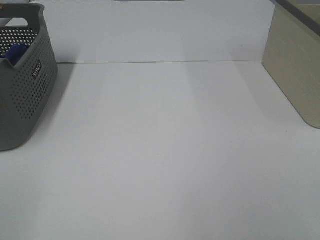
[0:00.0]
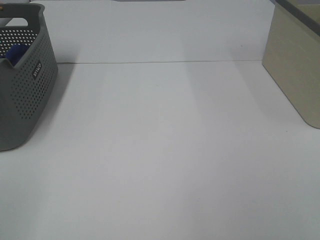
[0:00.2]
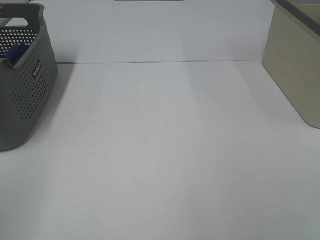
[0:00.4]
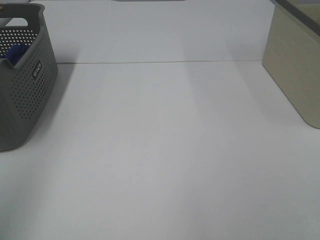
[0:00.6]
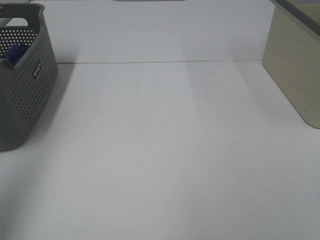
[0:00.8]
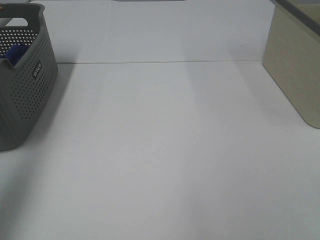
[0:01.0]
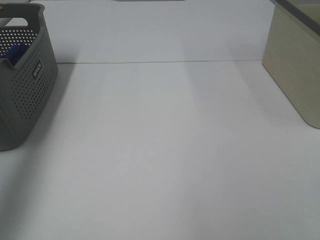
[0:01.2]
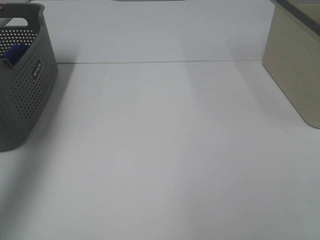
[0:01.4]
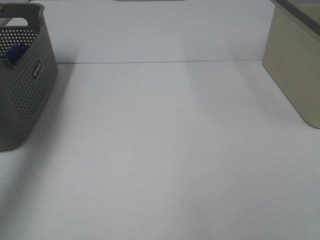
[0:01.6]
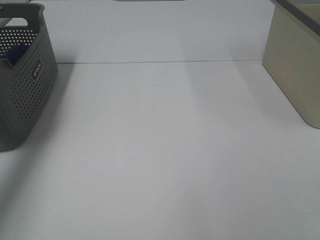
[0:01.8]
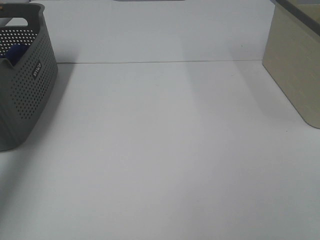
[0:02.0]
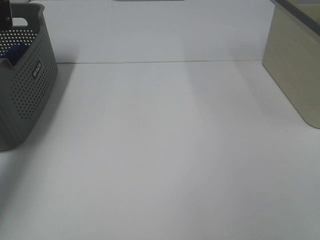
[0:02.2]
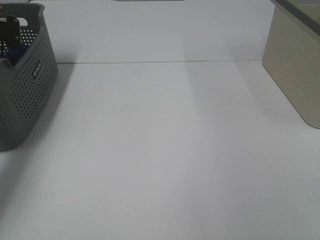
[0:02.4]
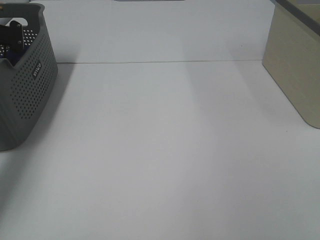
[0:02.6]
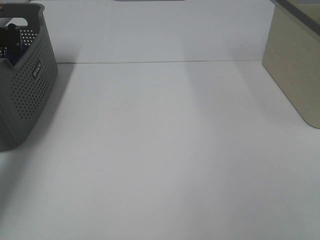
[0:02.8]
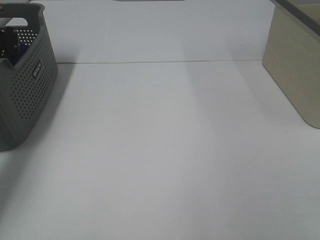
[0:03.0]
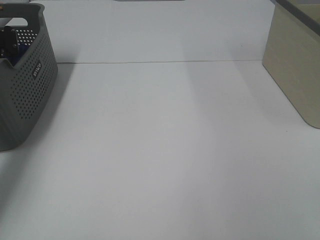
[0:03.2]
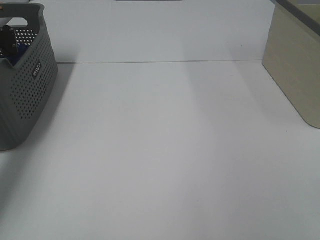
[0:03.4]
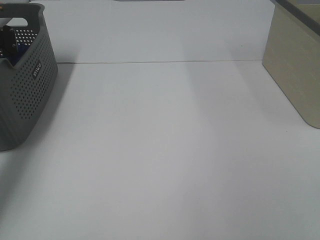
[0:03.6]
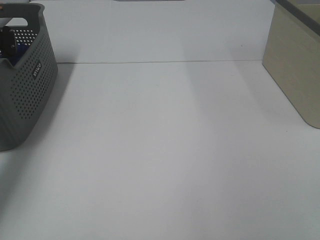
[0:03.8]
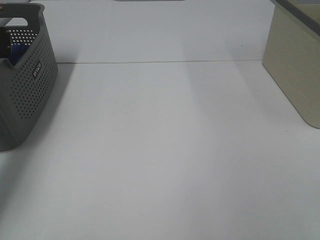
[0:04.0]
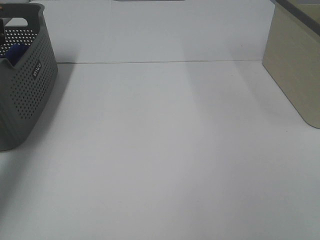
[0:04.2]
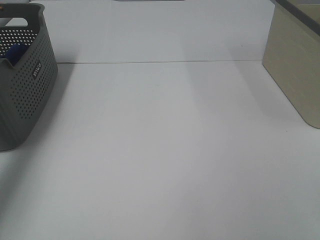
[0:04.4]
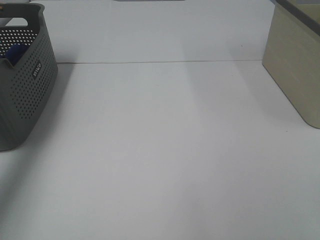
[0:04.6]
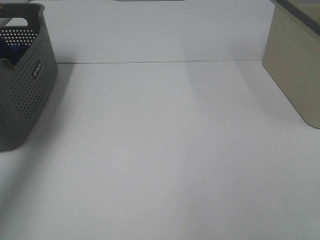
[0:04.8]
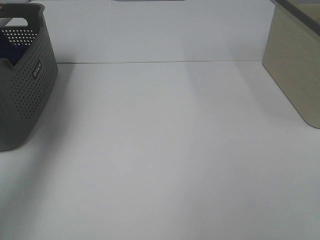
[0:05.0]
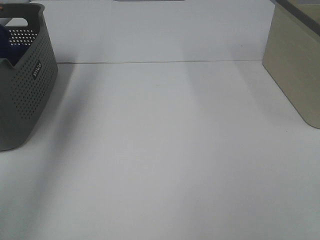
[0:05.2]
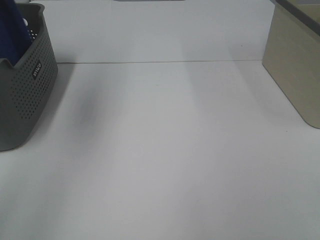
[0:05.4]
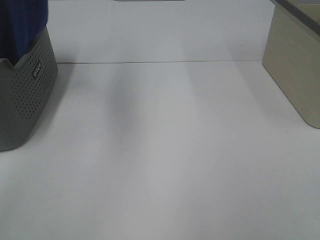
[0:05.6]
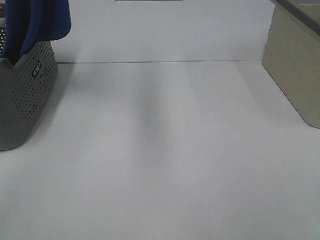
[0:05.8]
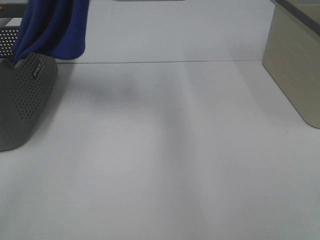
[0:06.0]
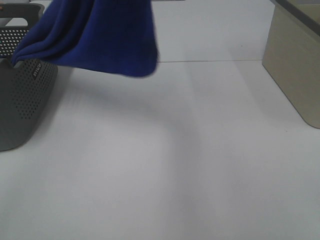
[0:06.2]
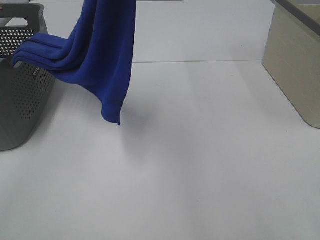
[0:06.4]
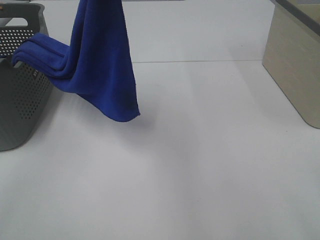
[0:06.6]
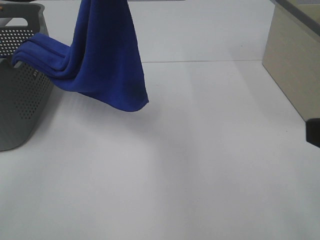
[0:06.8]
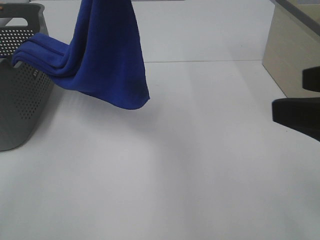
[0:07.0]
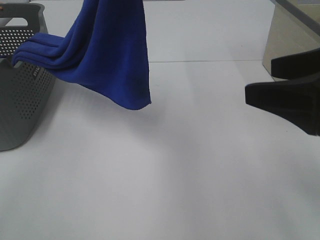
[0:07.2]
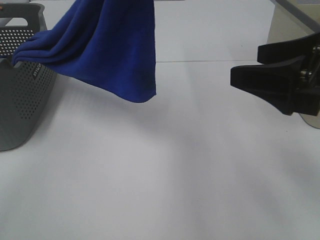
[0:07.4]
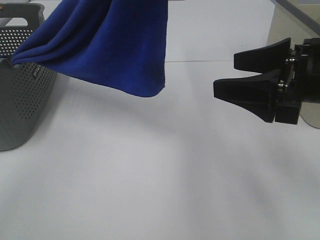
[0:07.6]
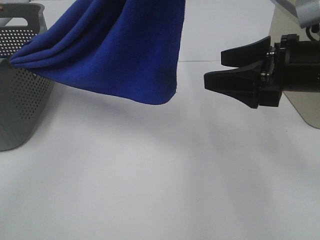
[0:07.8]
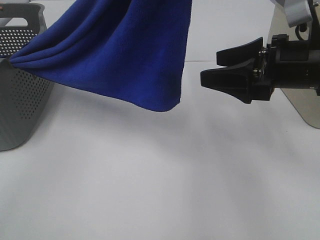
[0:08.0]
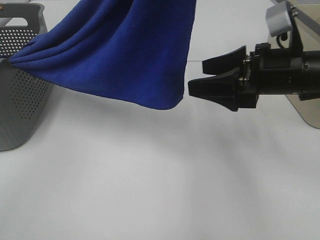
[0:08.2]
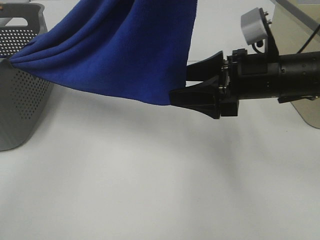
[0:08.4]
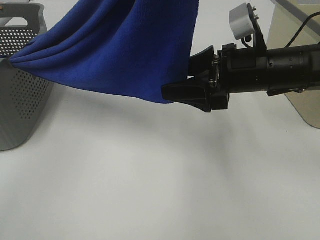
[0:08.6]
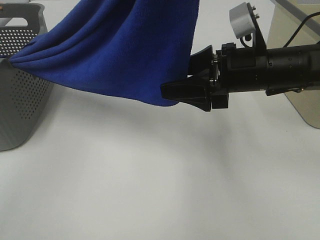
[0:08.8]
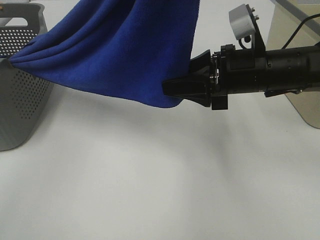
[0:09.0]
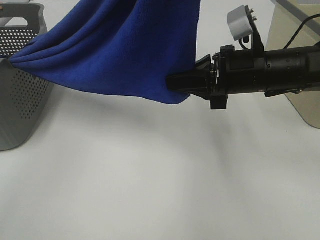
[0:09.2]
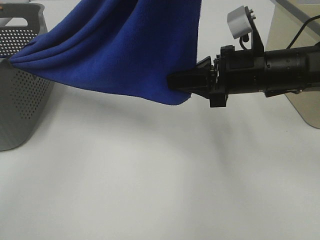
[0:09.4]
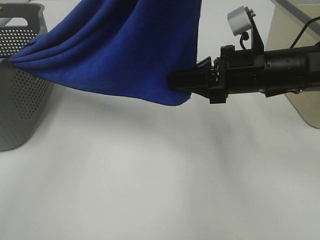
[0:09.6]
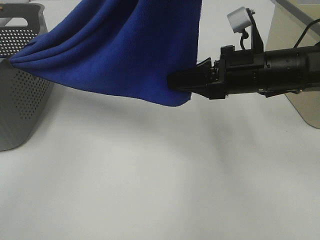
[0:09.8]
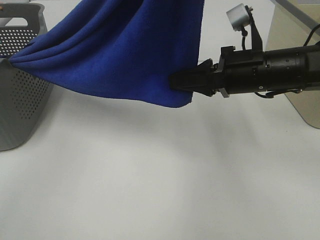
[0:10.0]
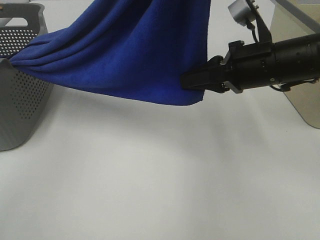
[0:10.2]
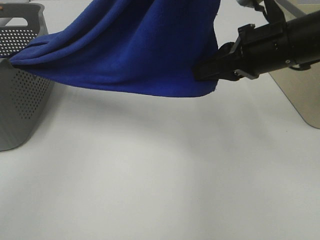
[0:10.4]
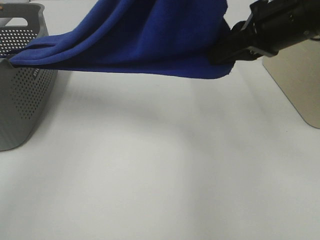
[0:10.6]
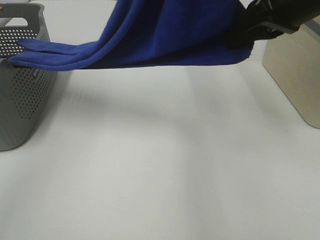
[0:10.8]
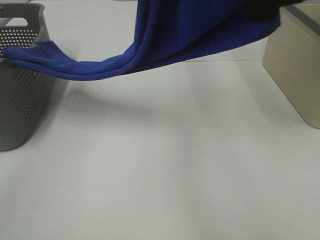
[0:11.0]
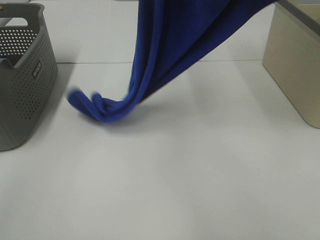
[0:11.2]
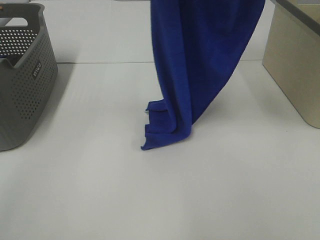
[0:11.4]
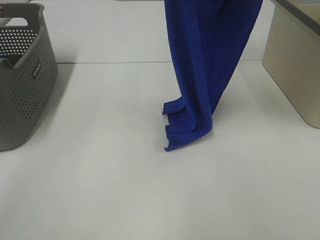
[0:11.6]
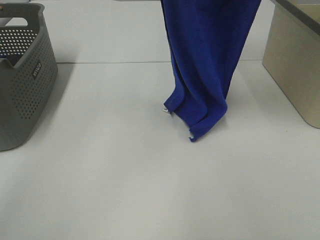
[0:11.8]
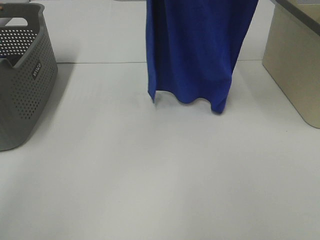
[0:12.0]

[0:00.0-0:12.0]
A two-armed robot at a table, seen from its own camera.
Task of the whole recording: Remove the towel and place it.
Step, 0:06.2 to 0:09.4: Right hand: grab a corner of the blue towel and straighten it.
0:00.0 to 0:01.6: The left gripper moves forward, about 40 cm.
0:01.6 to 0:03.0: The left gripper goes approximately 20 cm downward and forward, and closes up.
0:04.4 to 0:06.0: The left gripper moves to the right, upward and backward, about 40 cm.
0:06.0 to 0:07.6: The right gripper goes some 20 cm forward. Meanwhile the left gripper shifts by about 5 cm.
0:07.6 to 0:09.0: The right gripper heads forward and to the left, covering some 10 cm, and closes up.
0:09.0 to 0:10.4: The right gripper travels upward by some 5 cm, and closes its fingers.
0:10.4 to 0:12.0: The left gripper travels forward and to the left by roughly 15 cm, while the right gripper moves upward, approximately 25 cm.

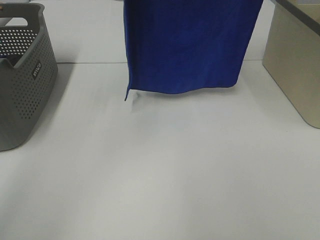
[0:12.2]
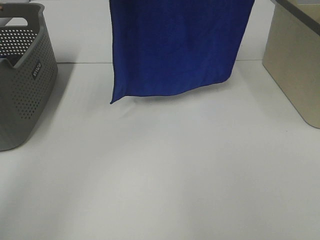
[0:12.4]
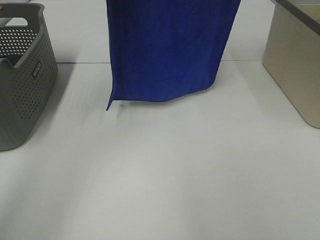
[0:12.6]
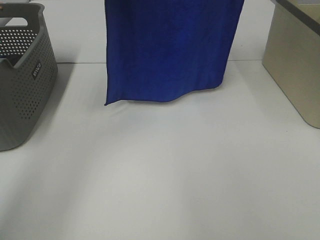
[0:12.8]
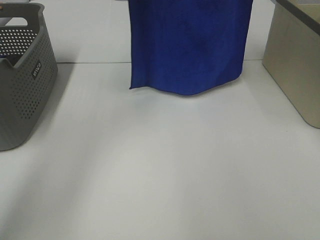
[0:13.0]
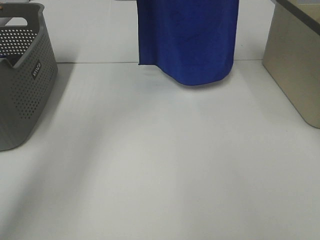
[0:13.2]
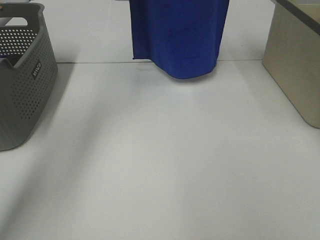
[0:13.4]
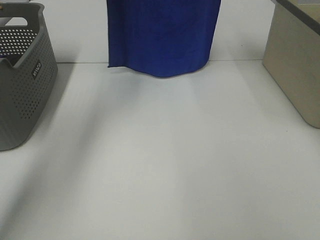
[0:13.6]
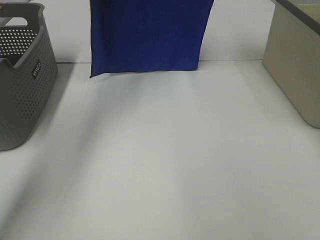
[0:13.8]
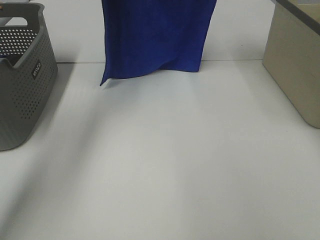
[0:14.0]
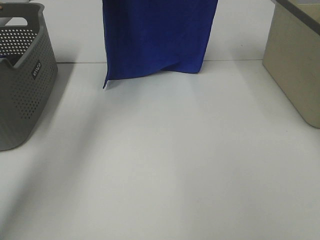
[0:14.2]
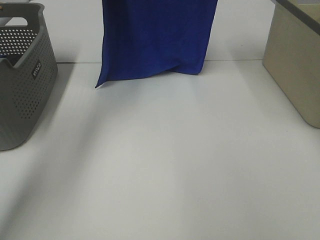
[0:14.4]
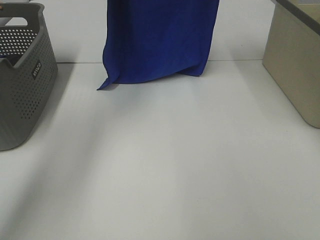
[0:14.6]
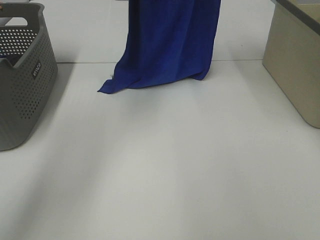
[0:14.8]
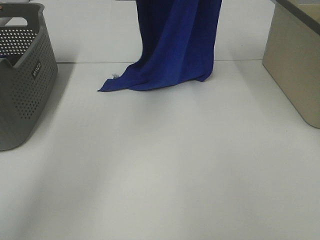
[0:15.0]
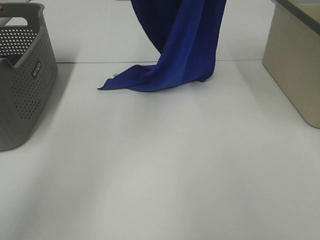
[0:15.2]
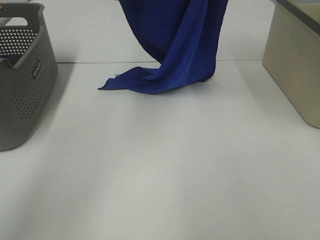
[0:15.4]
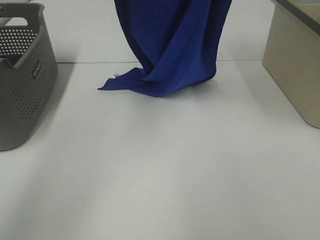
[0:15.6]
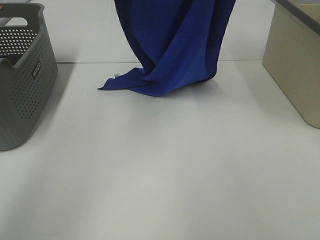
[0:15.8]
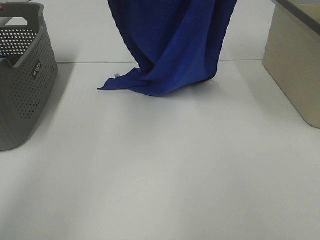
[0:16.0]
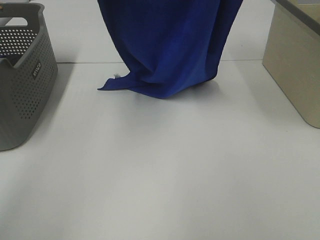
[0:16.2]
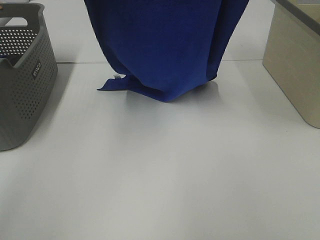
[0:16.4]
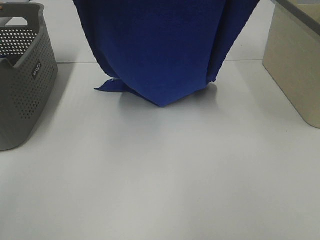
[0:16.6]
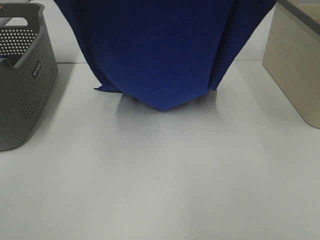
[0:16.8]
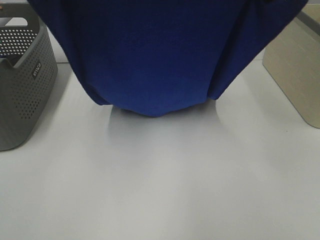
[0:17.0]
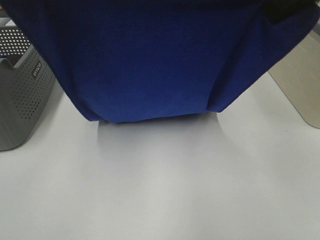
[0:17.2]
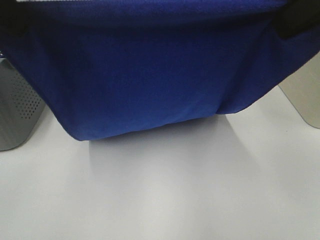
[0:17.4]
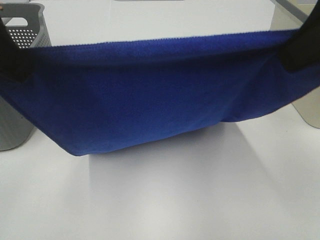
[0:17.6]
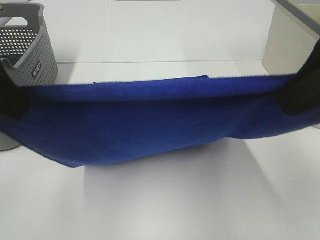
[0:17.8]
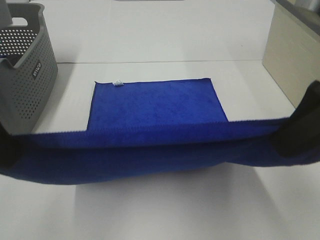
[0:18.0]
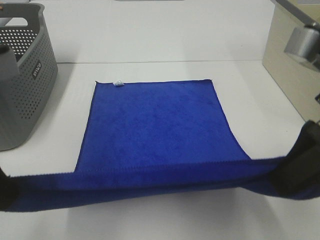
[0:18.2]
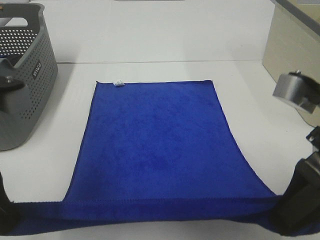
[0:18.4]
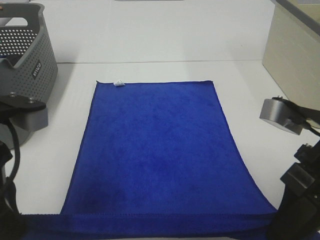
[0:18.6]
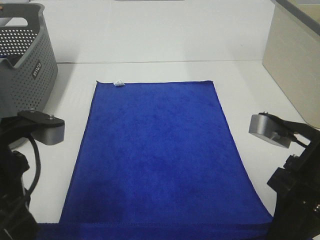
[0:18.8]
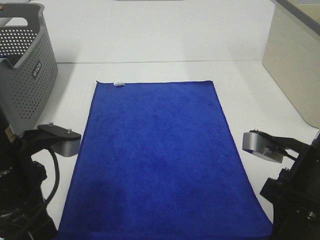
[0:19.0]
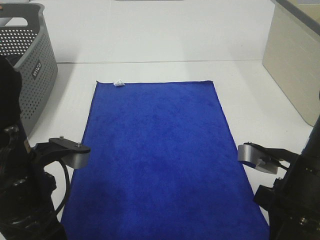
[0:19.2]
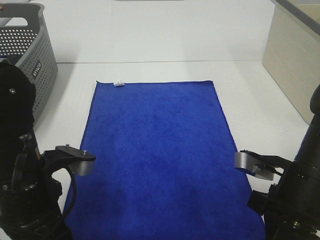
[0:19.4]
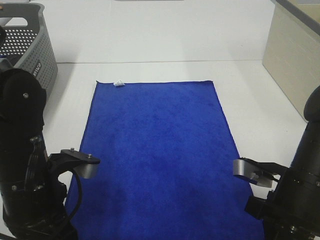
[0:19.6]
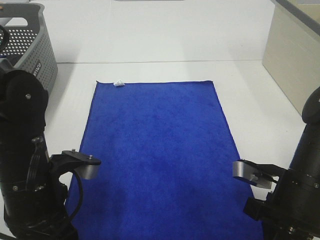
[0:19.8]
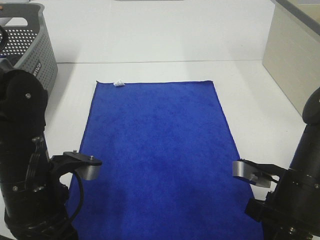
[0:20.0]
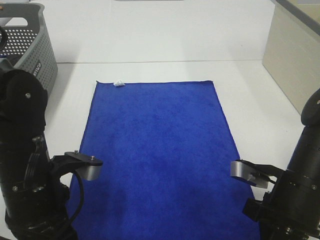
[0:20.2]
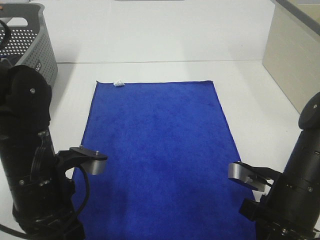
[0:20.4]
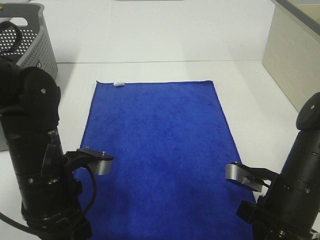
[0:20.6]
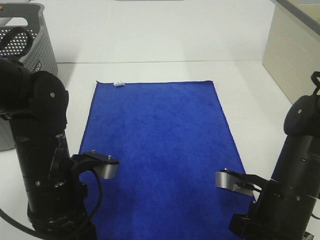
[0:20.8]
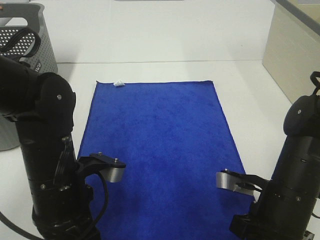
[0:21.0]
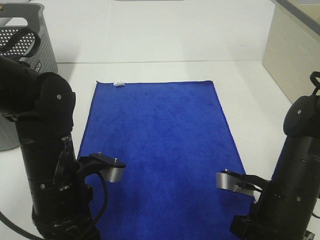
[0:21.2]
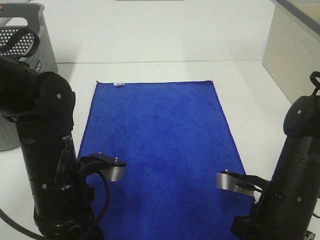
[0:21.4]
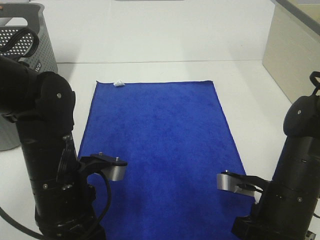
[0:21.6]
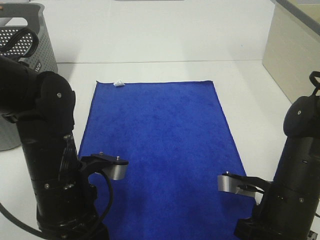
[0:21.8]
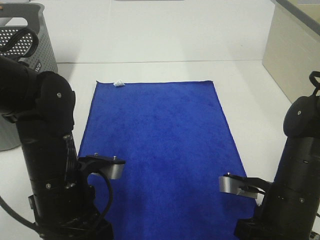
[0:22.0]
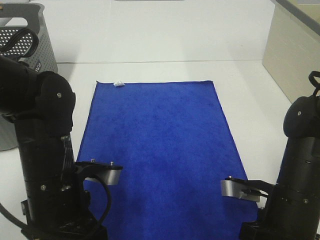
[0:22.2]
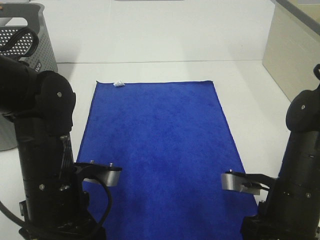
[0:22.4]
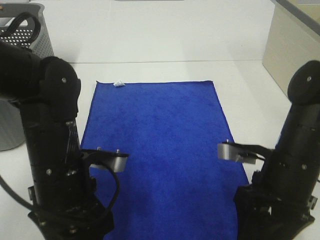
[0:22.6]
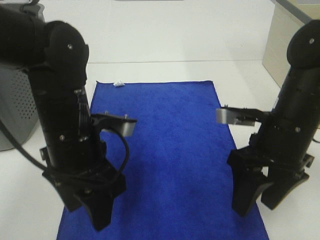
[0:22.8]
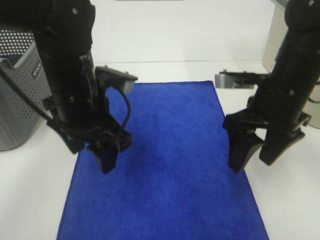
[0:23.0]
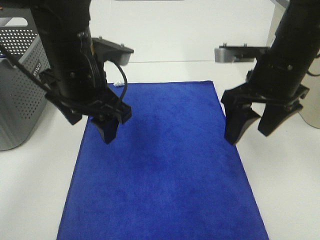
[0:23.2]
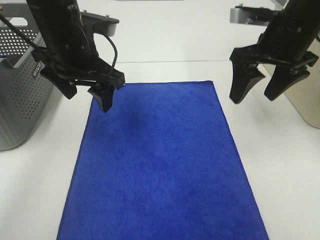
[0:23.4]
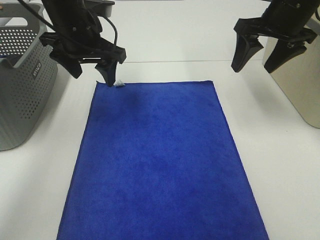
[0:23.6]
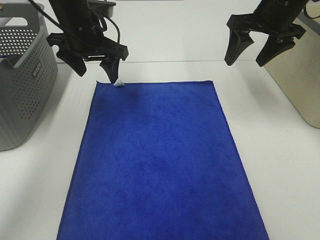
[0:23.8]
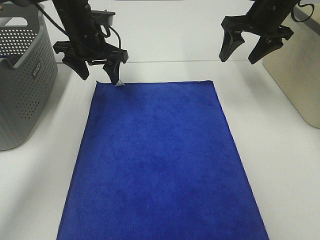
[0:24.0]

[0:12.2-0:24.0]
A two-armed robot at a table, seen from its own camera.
Task of the whole recording: Remove the towel and place it.
Step, 0:12.2 to 0:17.0: Left hand: spread the blue towel flat on the table.
Step, 0:12.2 to 0:17.0: Right hand: spread the blue towel flat on the table.
Step, 0:17.2 to 0:23.8: Left hand:adjust the blue towel.
Step, 0:17.2 to 0:23.8: Right hand:adjust the blue towel.
0:12.2 to 0:13.6: Both grippers move forward, some 10 cm.
0:13.6 to 0:15.2: The left gripper heads downward, covering approximately 5 cm. Meanwhile the right gripper travels backward by approximately 5 cm.
0:15.2 to 0:16.6: Both grippers travel together backward, about 10 cm.
0:16.6 to 0:18.2: Both grippers travel together downward and backward, roughly 25 cm.
0:18.2 to 0:19.6: The two grippers go some 15 cm downward.
0:19.6 to 0:21.0: The grippers stay close to where they were, moving slightly.
0:21.0 to 0:22.6: The right gripper shifts by approximately 5 cm, and opens its fingers; the left gripper opens.
0:22.6 to 0:24.0: Both grippers move forward, approximately 30 cm.
